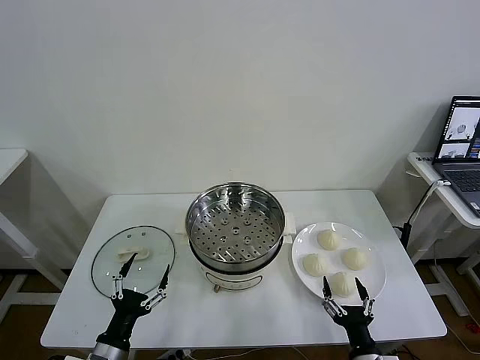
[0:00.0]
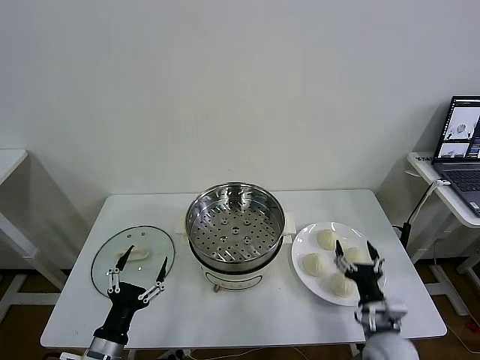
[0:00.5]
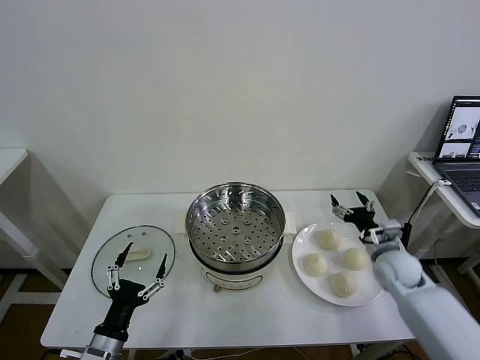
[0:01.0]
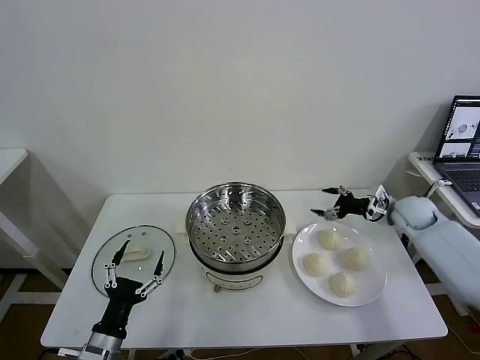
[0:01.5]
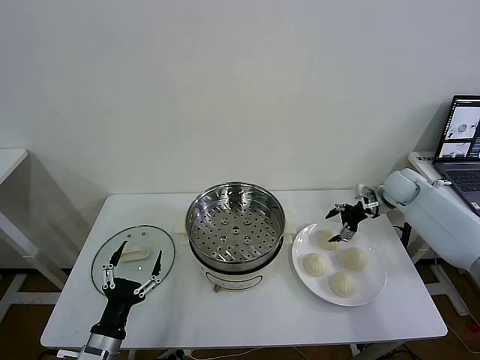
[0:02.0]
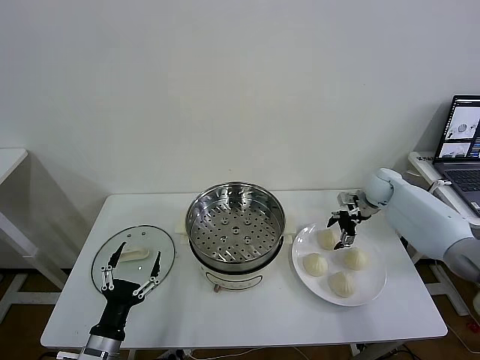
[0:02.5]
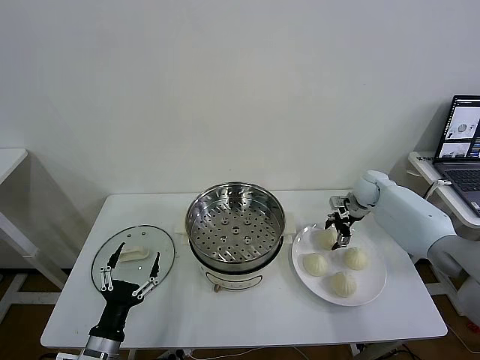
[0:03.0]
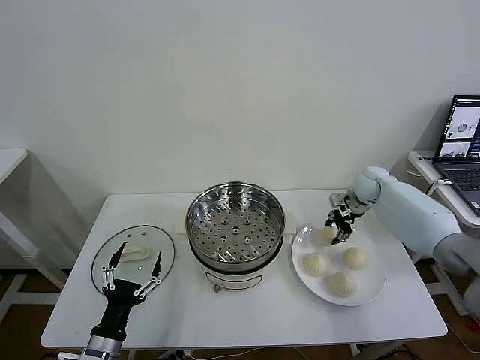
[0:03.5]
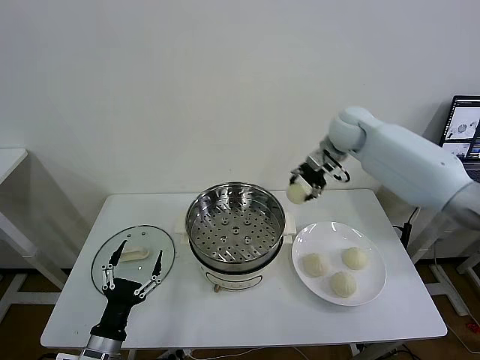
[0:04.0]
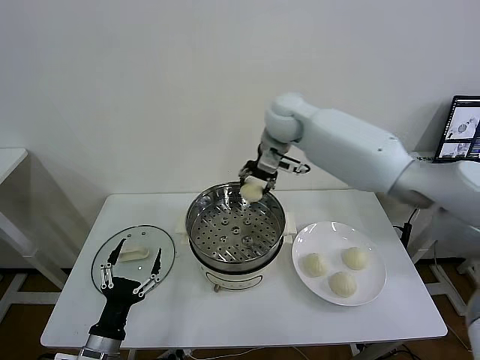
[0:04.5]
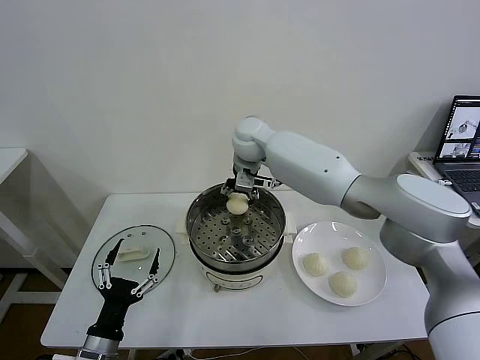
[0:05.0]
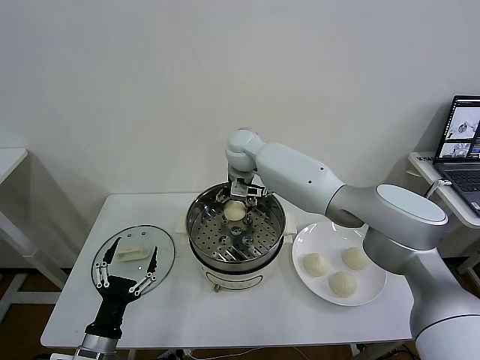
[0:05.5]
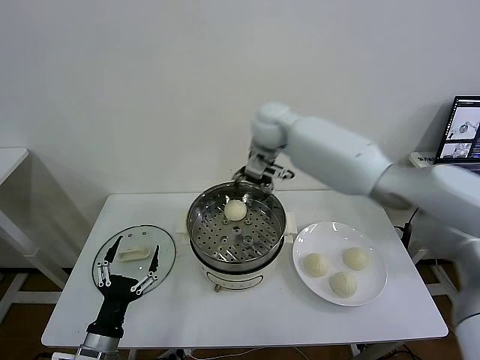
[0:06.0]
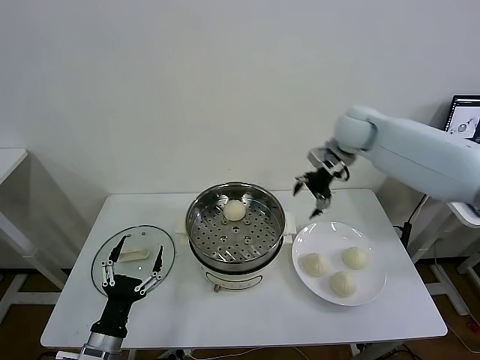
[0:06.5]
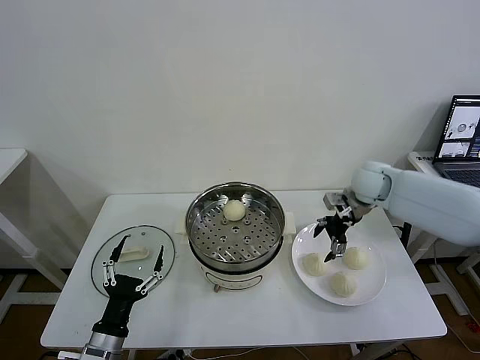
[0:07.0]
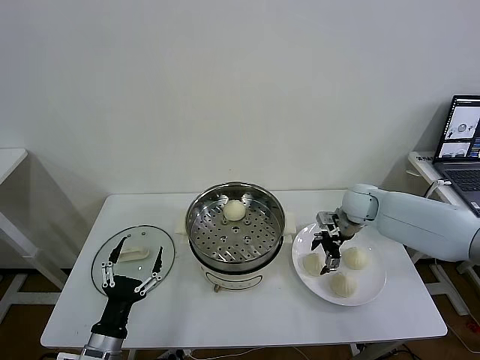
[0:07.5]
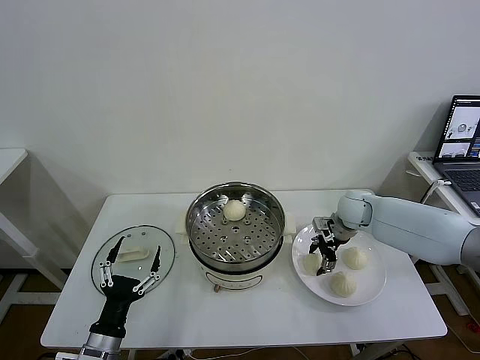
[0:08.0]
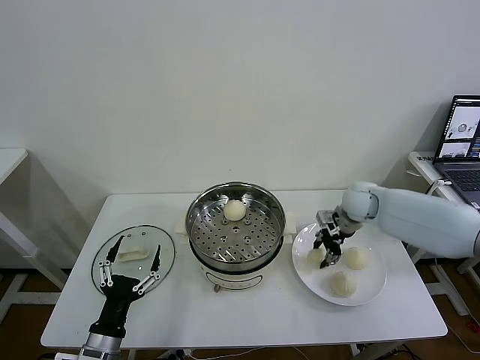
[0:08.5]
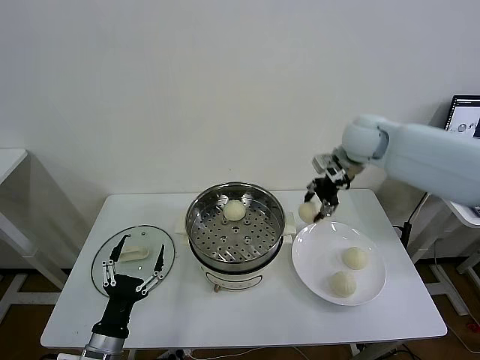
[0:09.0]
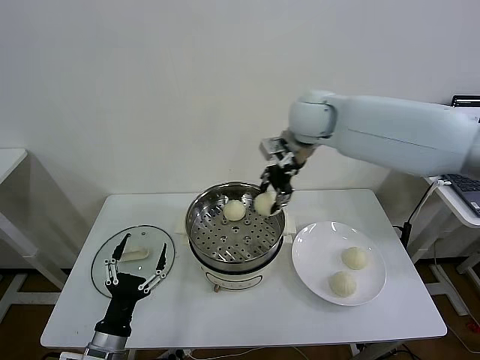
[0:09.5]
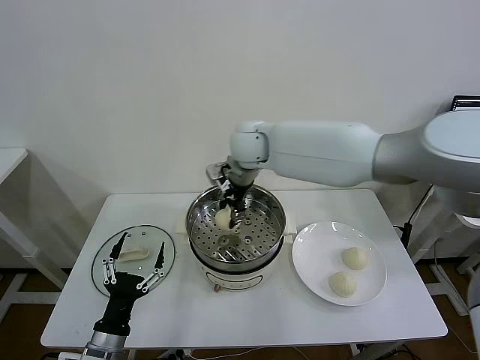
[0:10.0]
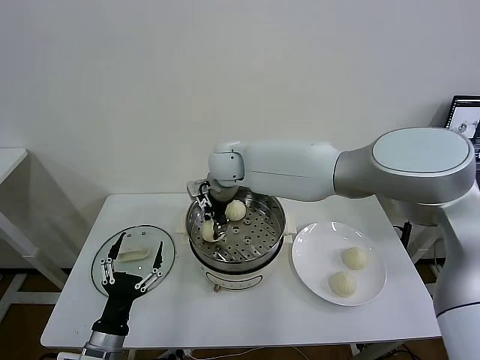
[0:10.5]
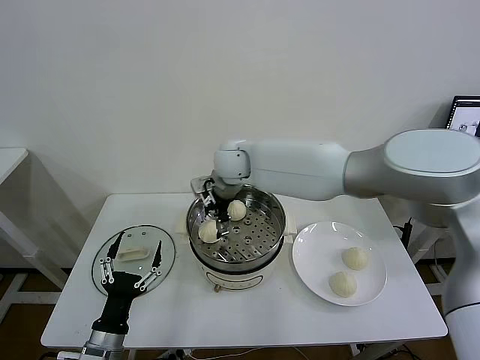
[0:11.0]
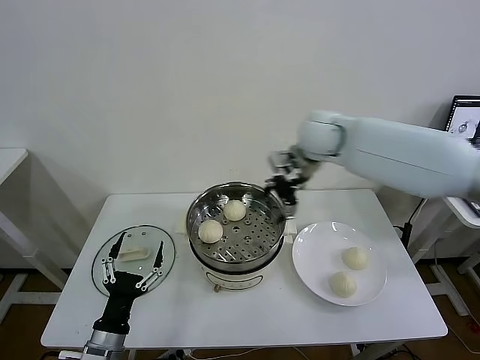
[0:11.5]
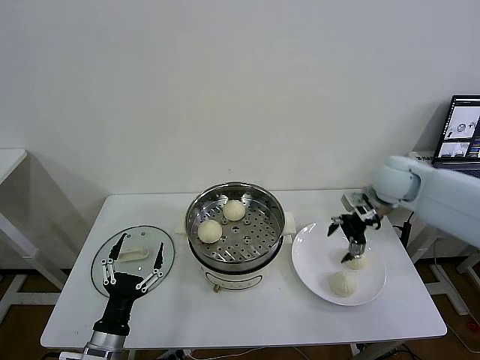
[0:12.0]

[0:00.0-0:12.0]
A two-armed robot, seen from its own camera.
Task of the whole recording: take steamed baozi put them in steamer then cover it.
Step, 0:00.0 to 0:03.0: Grasp the baozi in the plate with right gripper.
Step, 0:03.5 to 0:05.5: Place the baozi on the steamer with right gripper.
Step, 0:06.0 to 0:08.0: Grasp the baozi in the plate with right gripper.
Step, 0:08.5 to 0:10.5: Place the baozi on the steamer with right gripper.
0:02.0 to 0:04.0: The right gripper is displaced to the left and upward by approximately 25 cm, and closes its fingers.
0:04.0 to 0:06.0: The right gripper heads to the left, covering about 10 cm, and opens.
0:06.0 to 0:08.0: The right gripper moves downward and to the right, some 30 cm, and closes.
0:08.0 to 0:10.0: The right gripper goes about 35 cm to the left and upward.
0:10.0 to 0:12.0: The right gripper heads to the right, covering approximately 35 cm, and opens up.

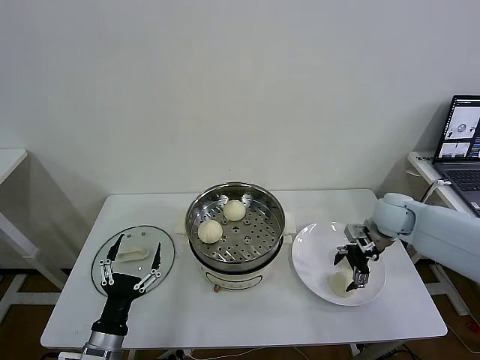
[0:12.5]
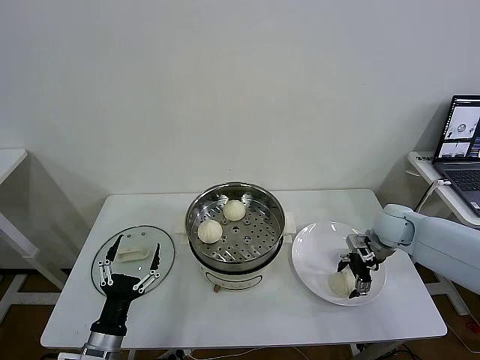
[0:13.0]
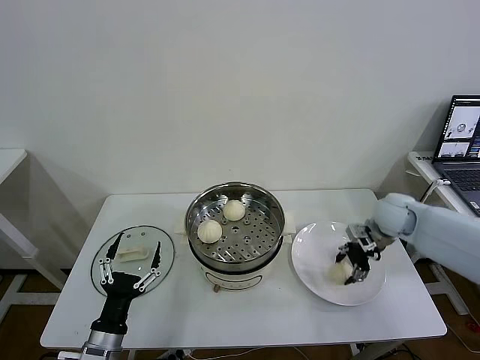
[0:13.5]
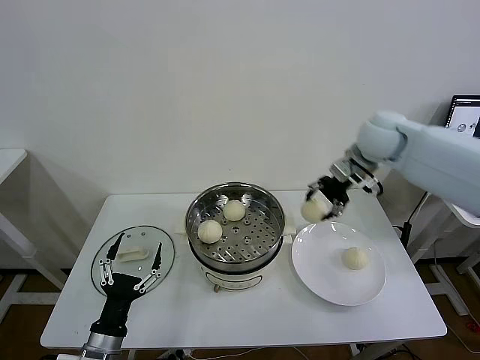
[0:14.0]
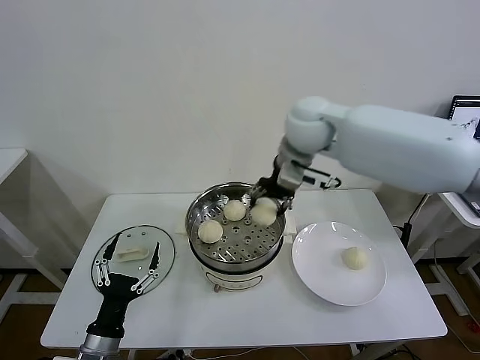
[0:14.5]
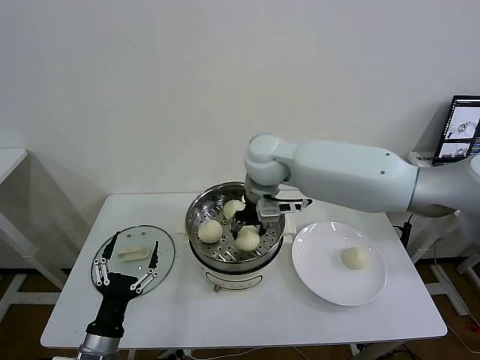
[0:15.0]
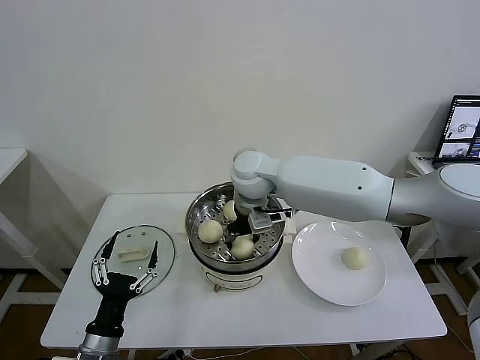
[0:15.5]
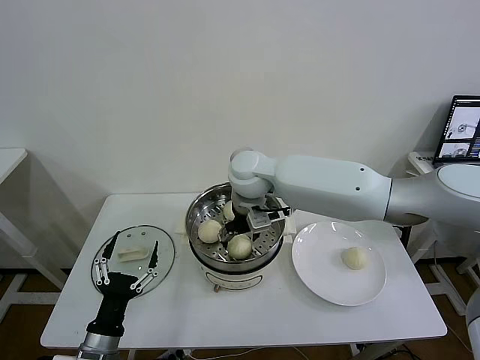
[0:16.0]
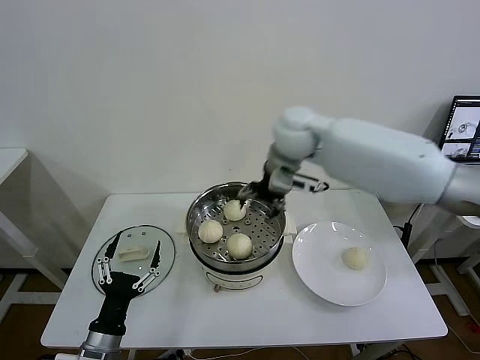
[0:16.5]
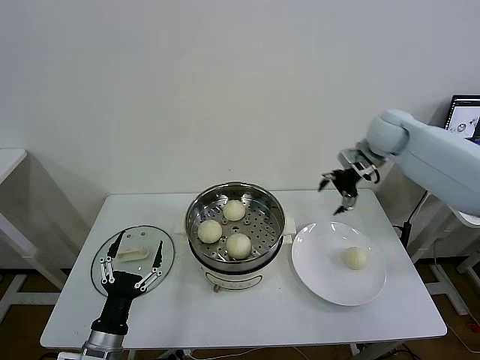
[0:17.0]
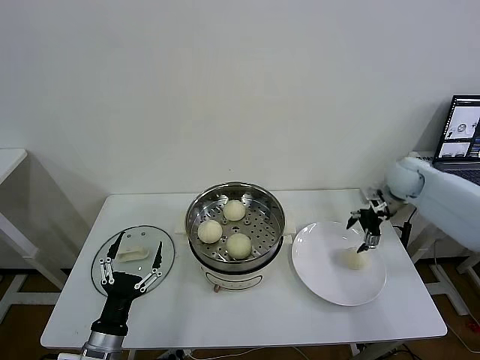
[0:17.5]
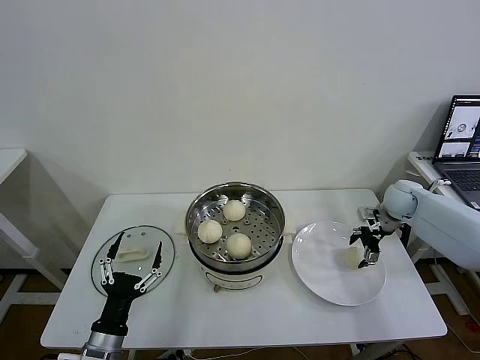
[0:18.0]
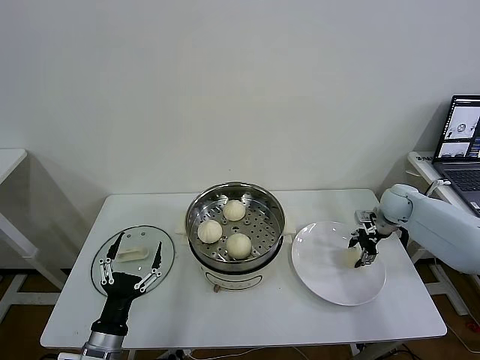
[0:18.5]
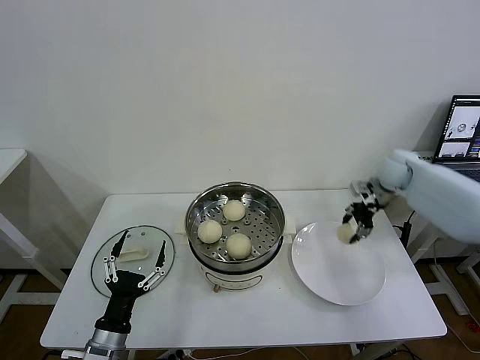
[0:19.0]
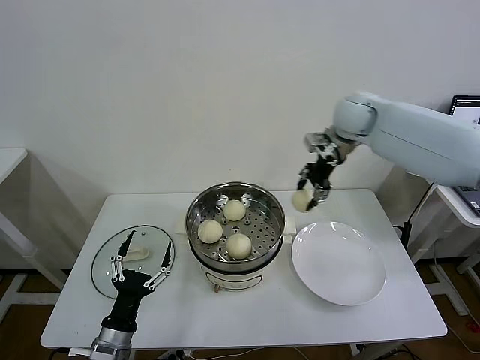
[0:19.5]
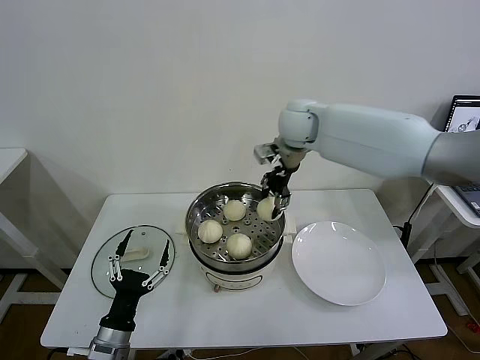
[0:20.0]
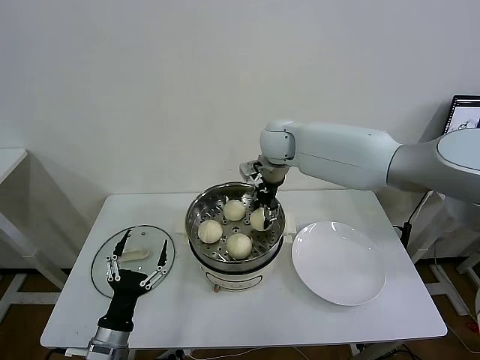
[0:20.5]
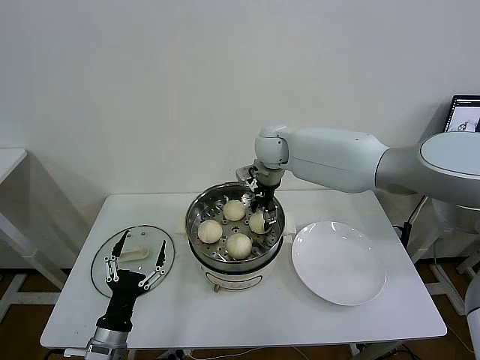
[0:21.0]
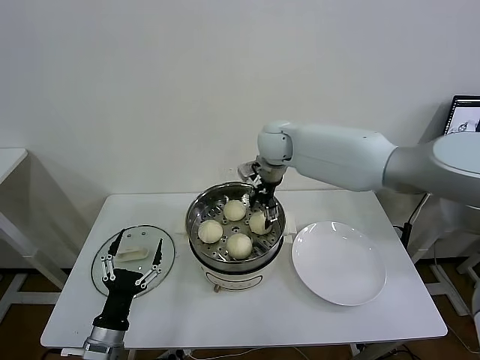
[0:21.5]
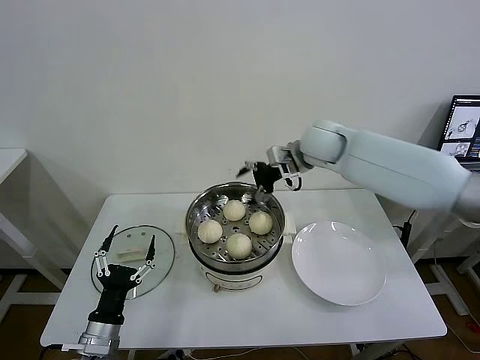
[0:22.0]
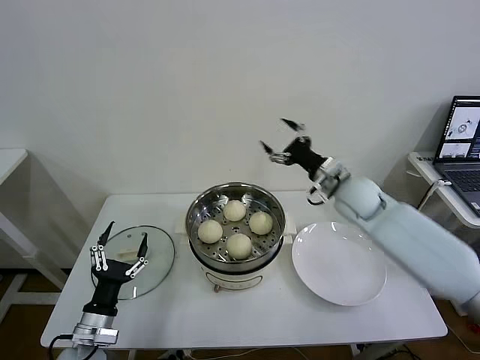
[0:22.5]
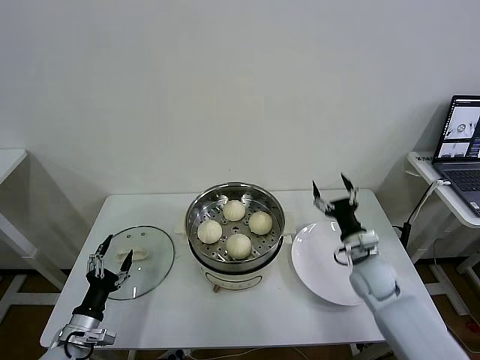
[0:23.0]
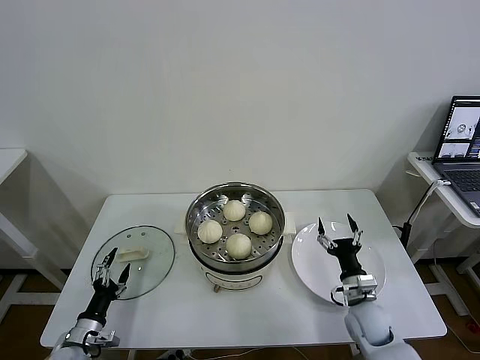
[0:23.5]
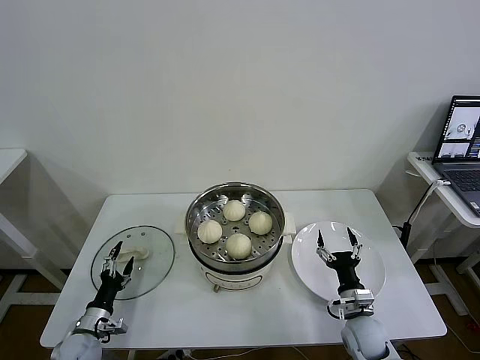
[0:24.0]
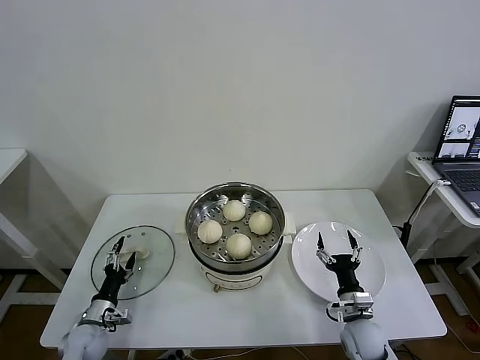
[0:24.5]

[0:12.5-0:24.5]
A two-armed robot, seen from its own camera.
Task of the whole recording: take steamed baozi put them in steamer then cover it.
Step, 0:13.5 to 0:15.5: Place the baozi on the steamer with right gripper.
Step, 0:16.5 to 0:18.5: Grasp the baozi in the plate with right gripper.
Step, 0:19.0 to 0:21.0: Place the baozi on the steamer with right gripper.
0:12.5 to 0:14.5: The right gripper travels to the left and upward by roughly 35 cm, and closes up.
0:14.5 to 0:16.5: The right gripper travels to the left and back again, some 10 cm each way, and opens.
0:16.5 to 0:18.5: The right gripper moves to the right and downward, about 35 cm, and closes its fingers.
0:18.5 to 0:20.5: The right gripper travels to the left and upward by about 35 cm.
0:20.5 to 0:22.5: The right gripper heads to the right, backward and downward, covering roughly 20 cm, and opens up.
0:22.5 to 0:24.5: The right gripper shifts approximately 35 cm downward and backward. Meanwhile the left gripper heads downward, to the left and forward, covering some 15 cm.

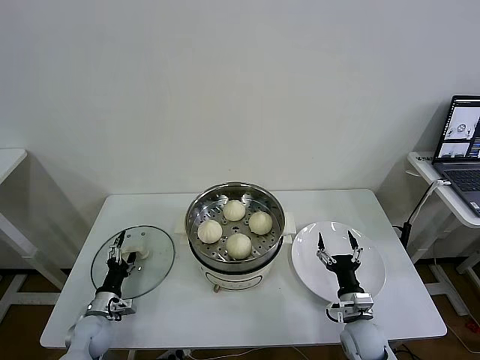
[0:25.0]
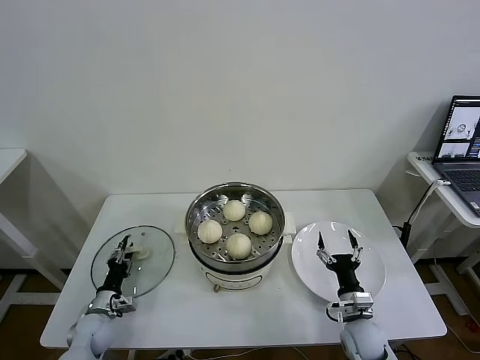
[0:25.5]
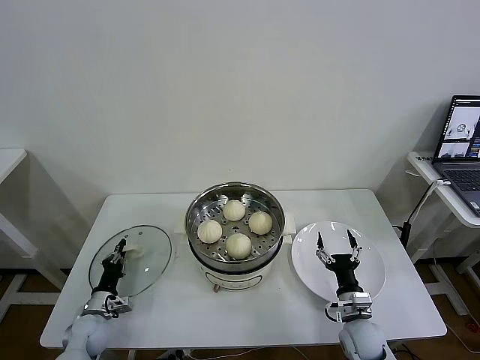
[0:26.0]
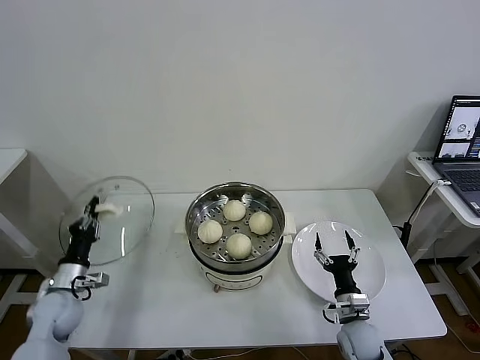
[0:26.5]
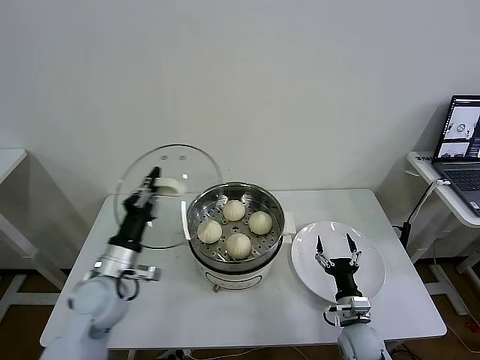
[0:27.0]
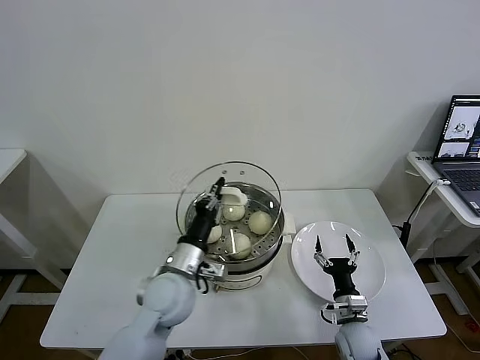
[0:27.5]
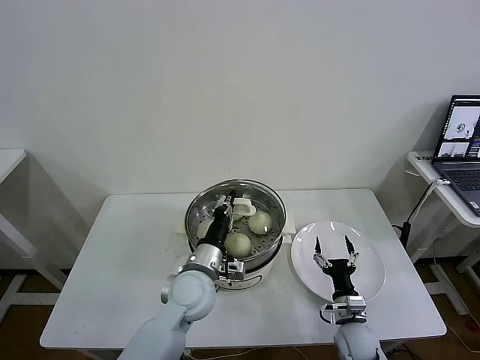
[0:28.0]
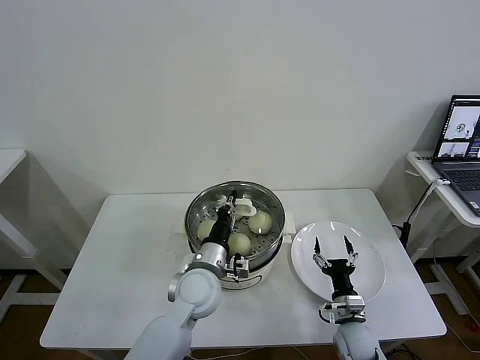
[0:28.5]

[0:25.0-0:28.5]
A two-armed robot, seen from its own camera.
Task of the whole recording: take steamed baozi put them in steamer then cover it.
0:25.0 to 0:27.0: The left gripper travels upward and to the right by roughly 25 cm, and closes.
0:27.0 to 0:28.5: The left gripper moves to the right, approximately 20 cm.
